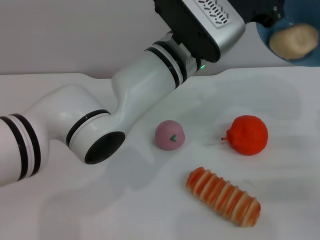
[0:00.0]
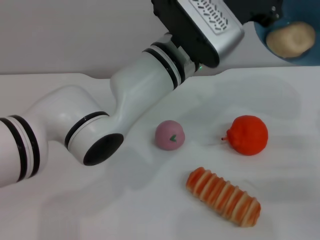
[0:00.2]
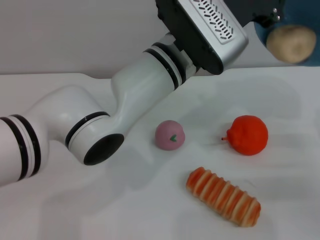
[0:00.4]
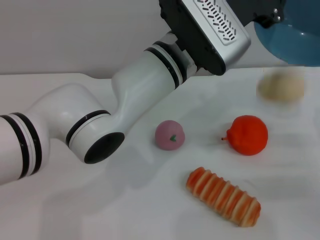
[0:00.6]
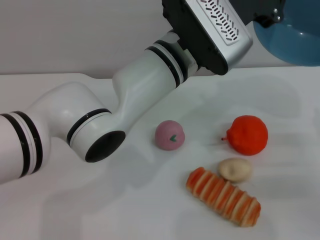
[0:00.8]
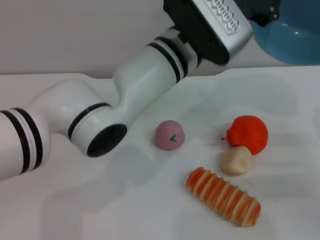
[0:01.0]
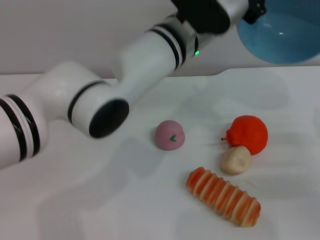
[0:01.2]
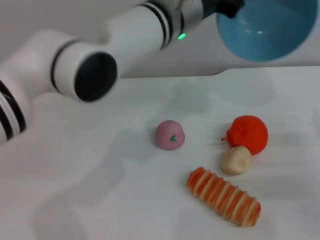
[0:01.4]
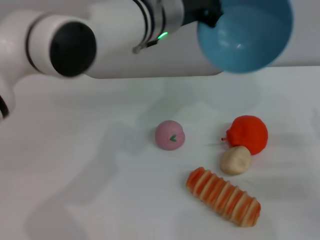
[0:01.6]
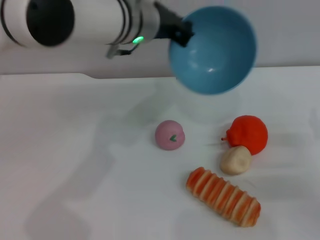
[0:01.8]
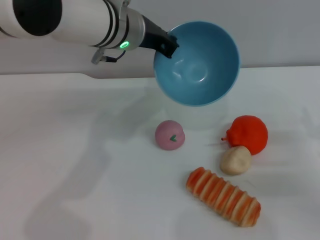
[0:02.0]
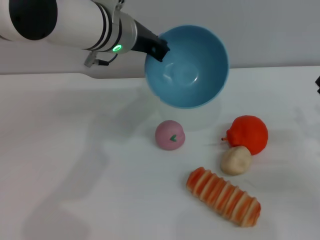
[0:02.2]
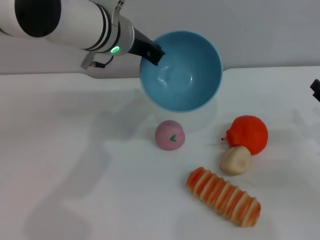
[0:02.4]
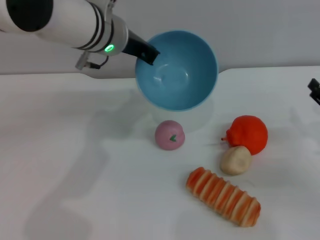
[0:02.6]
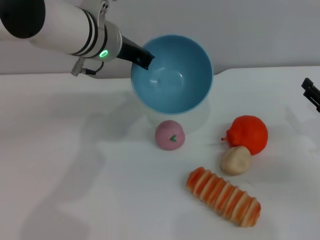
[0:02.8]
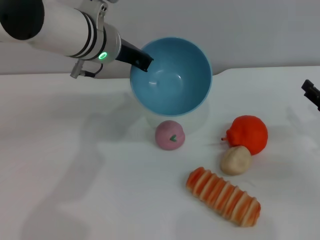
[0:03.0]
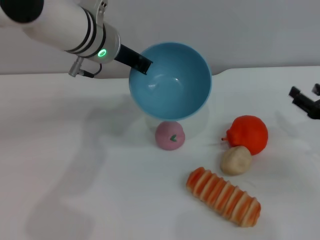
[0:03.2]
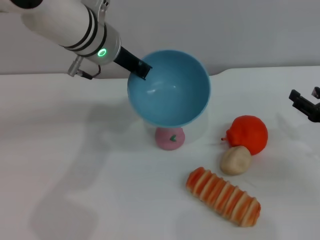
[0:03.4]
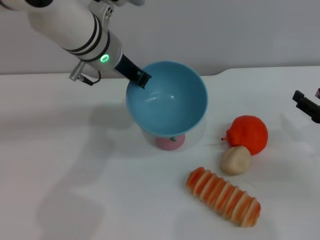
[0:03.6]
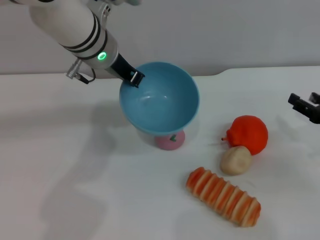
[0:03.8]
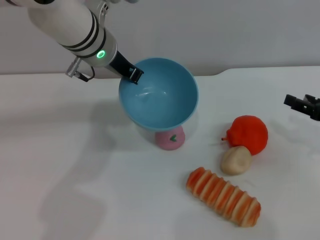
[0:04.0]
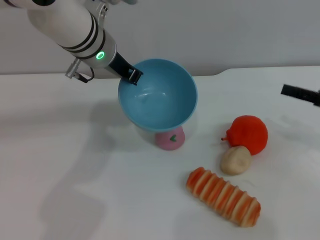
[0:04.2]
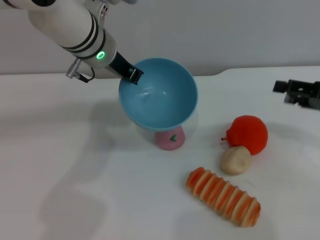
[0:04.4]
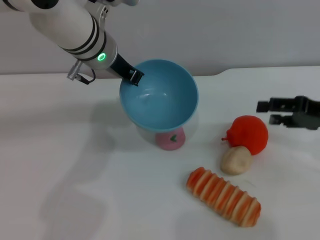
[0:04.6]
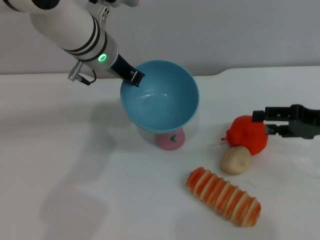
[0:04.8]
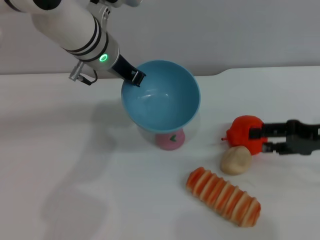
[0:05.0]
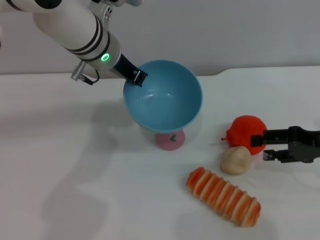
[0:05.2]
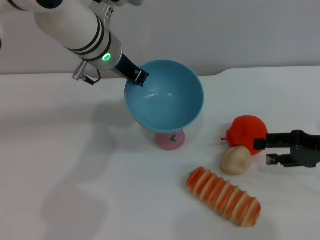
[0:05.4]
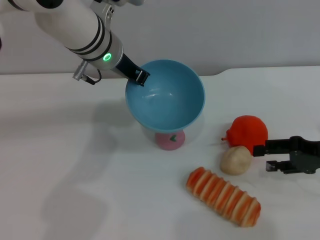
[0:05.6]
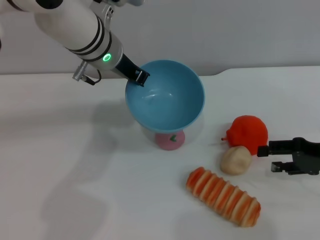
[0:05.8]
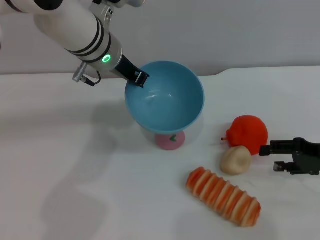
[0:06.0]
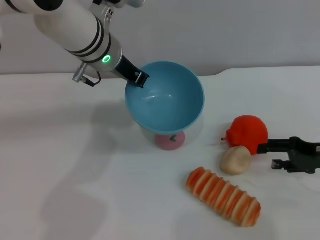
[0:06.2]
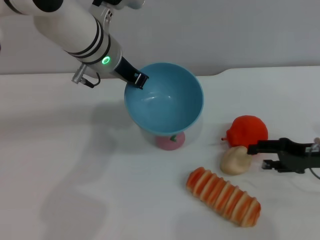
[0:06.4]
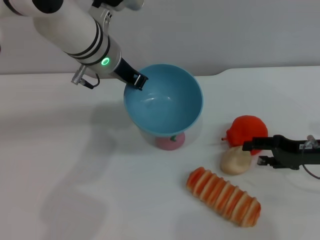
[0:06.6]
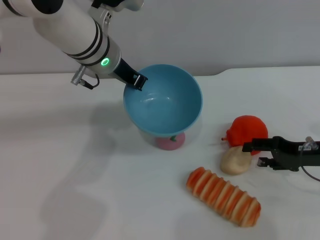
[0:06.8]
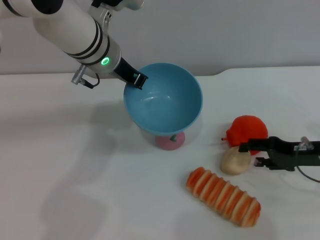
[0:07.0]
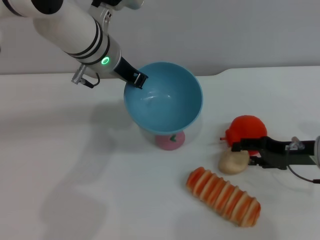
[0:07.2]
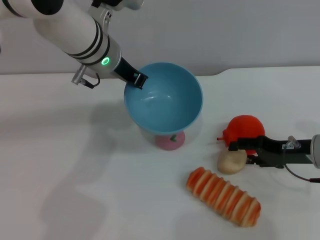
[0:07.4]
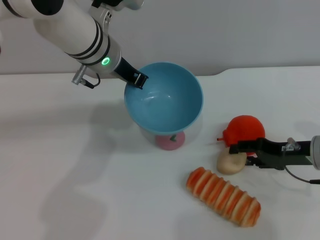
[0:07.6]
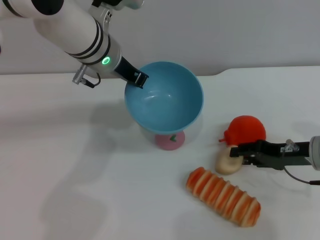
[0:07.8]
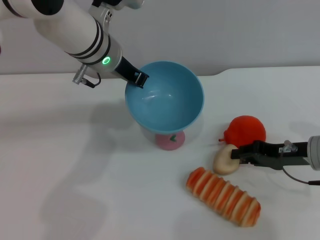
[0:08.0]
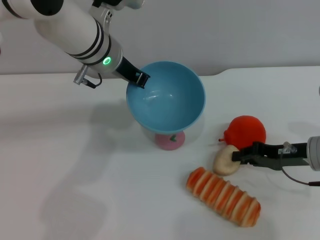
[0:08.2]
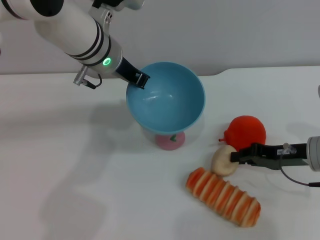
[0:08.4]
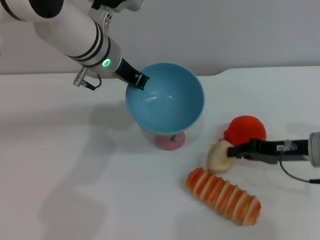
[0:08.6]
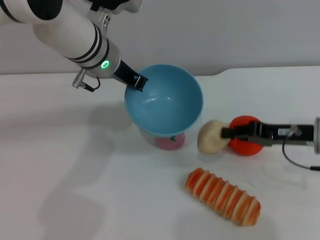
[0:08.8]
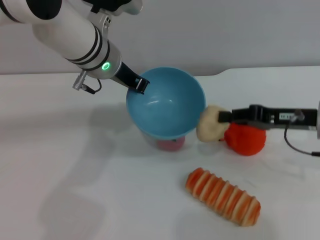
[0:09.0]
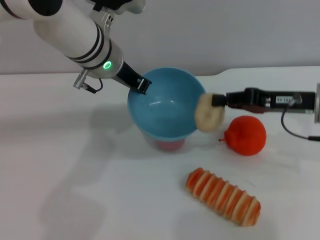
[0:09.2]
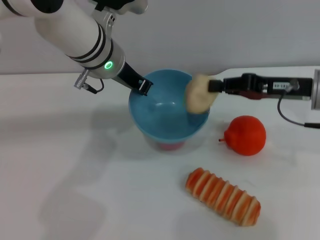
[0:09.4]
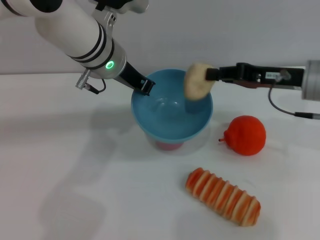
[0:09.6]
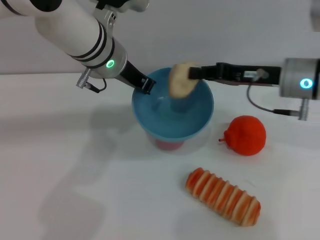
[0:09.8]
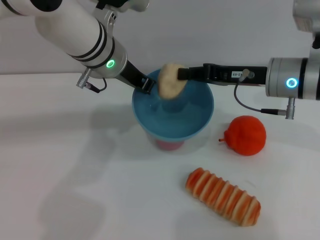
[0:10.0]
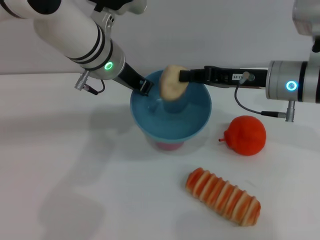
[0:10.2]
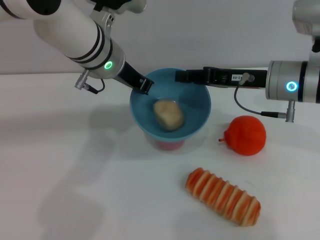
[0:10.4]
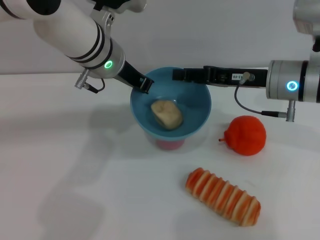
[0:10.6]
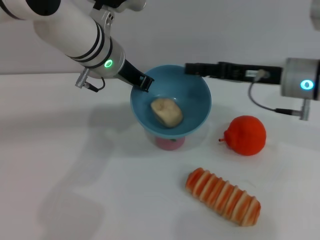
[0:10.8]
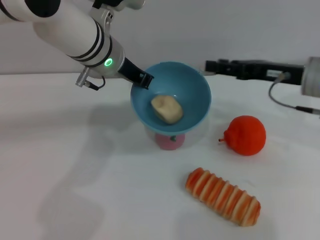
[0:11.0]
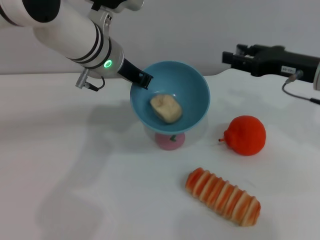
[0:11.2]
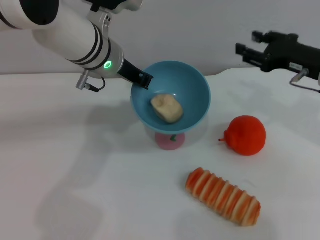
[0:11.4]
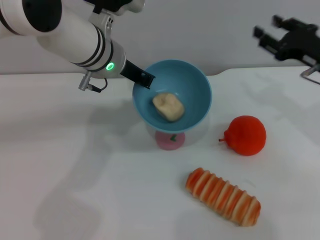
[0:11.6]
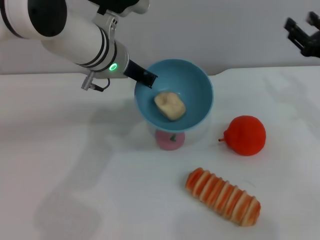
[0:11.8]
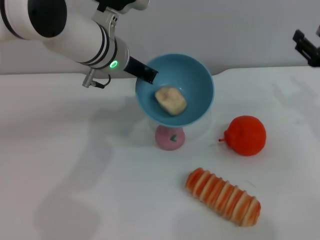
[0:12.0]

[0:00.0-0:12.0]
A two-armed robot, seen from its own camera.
Task of the whole recording: put the egg yolk pastry into the blue bowl and pour it out repeatedly.
Step, 0:01.2 to 0:08.8: Pick up the egg yolk pastry with the right gripper.
Step, 0:09.0 to 0:11.0: Place the egg yolk pastry into the bowl.
0:00.0 to 0:01.6: The left gripper changes place by approximately 5 cm.
0:01.6 to 0:03.0: The left gripper heads to the left, covering roughly 5 cm.
0:03.0 to 0:04.4: The right gripper travels upward by roughly 10 cm.
0:04.4 to 0:06.0: The right gripper is displaced downward by about 5 cm.
0:06.0 to 0:07.6: The right gripper moves to the left, about 5 cm.
0:07.6 to 0:09.0: The right gripper is displaced upward by approximately 5 cm, and closes its fingers.
0:09.0 to 0:10.4: The right gripper goes some 10 cm to the left and forward.
0:10.4 to 0:12.0: The right gripper moves to the right, roughly 15 cm, and opens up.

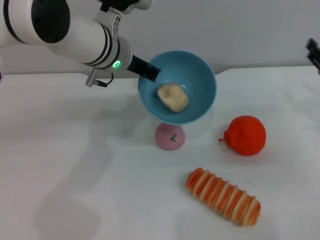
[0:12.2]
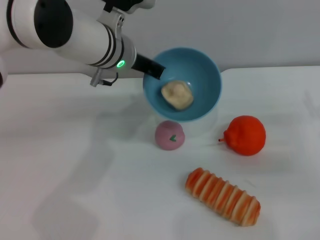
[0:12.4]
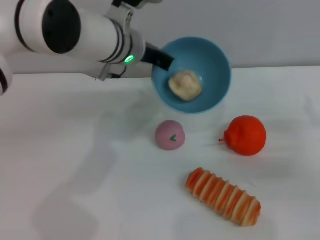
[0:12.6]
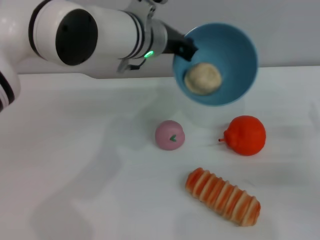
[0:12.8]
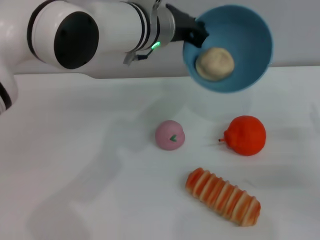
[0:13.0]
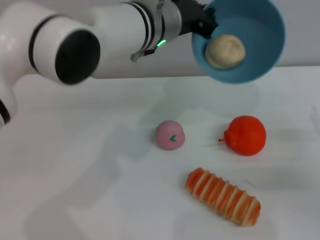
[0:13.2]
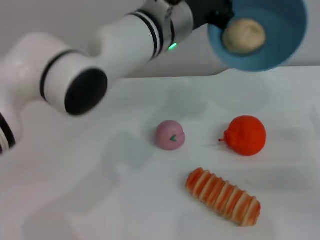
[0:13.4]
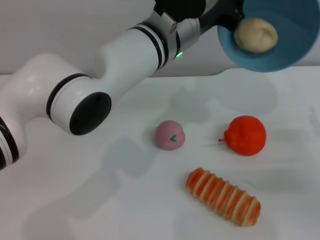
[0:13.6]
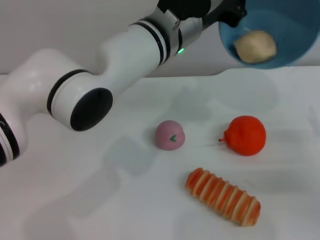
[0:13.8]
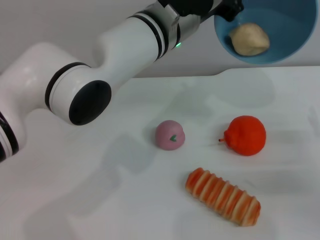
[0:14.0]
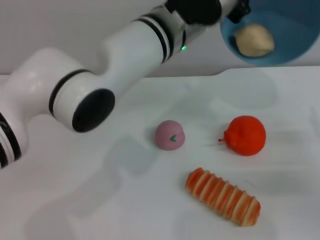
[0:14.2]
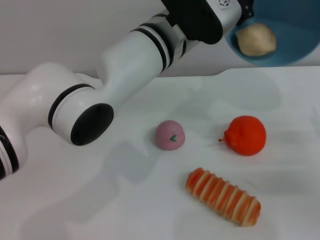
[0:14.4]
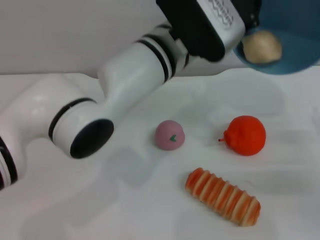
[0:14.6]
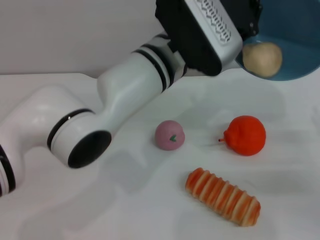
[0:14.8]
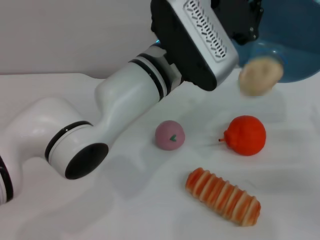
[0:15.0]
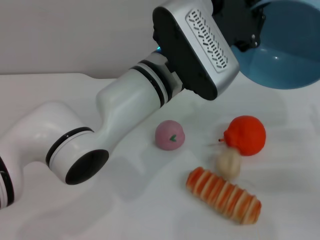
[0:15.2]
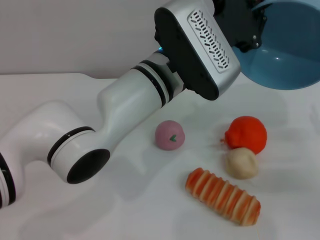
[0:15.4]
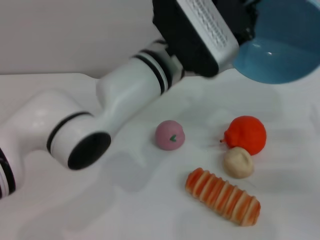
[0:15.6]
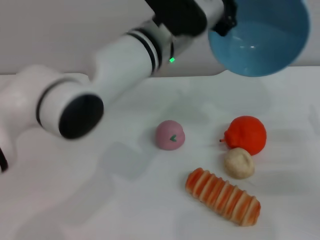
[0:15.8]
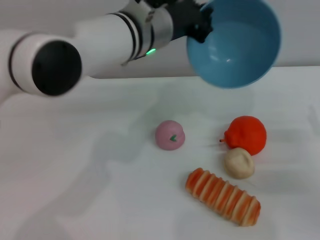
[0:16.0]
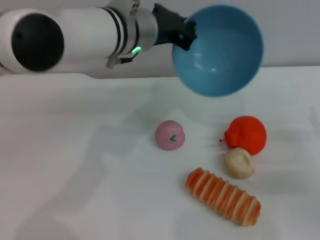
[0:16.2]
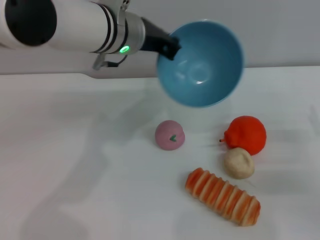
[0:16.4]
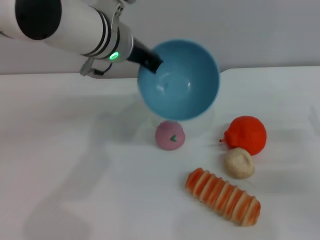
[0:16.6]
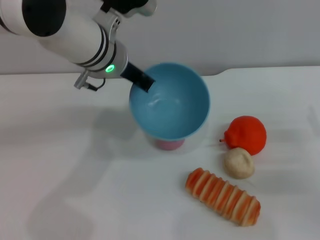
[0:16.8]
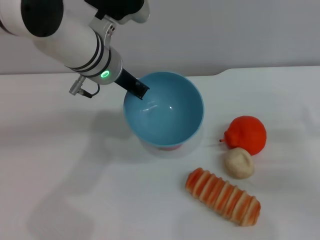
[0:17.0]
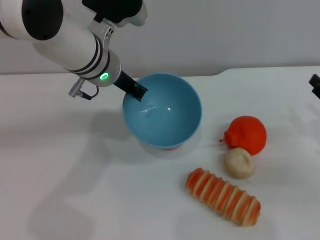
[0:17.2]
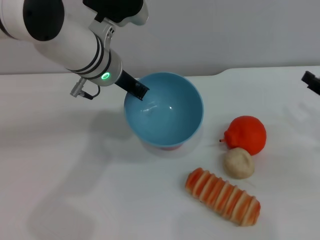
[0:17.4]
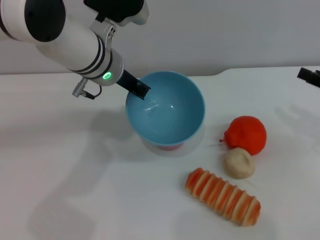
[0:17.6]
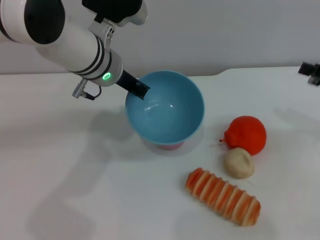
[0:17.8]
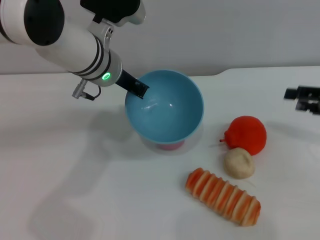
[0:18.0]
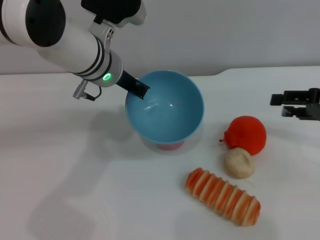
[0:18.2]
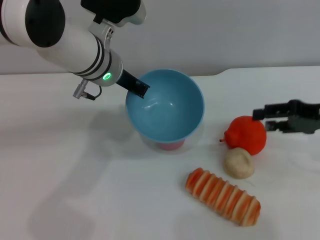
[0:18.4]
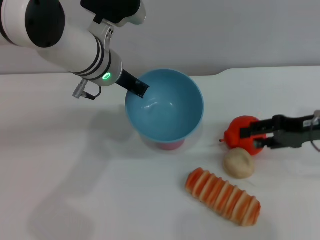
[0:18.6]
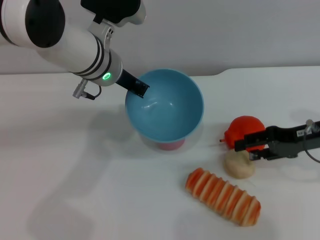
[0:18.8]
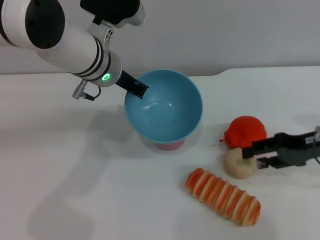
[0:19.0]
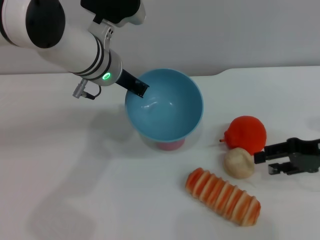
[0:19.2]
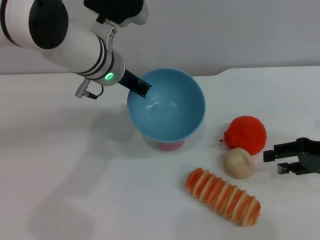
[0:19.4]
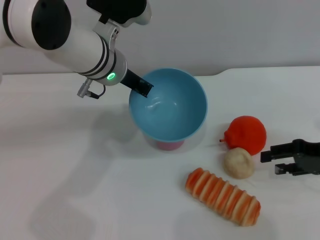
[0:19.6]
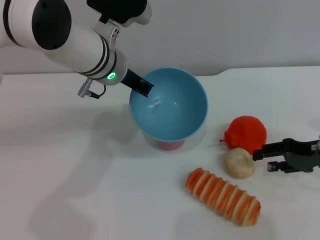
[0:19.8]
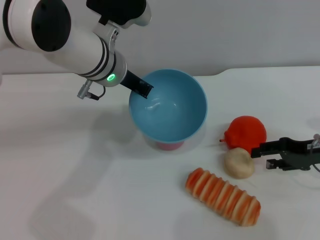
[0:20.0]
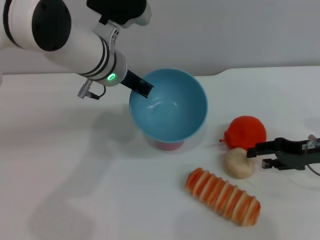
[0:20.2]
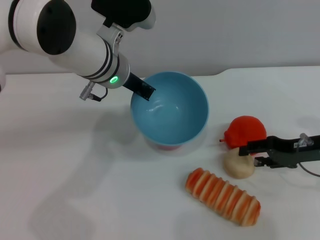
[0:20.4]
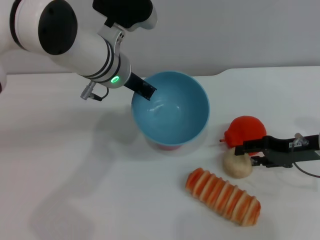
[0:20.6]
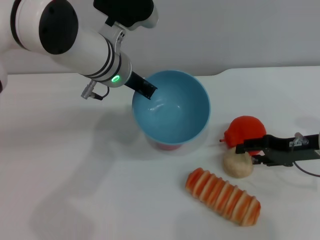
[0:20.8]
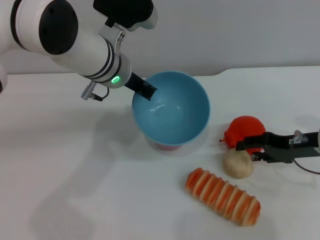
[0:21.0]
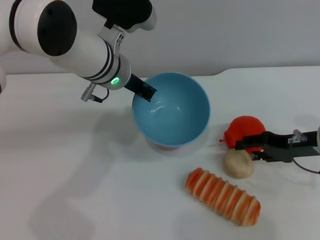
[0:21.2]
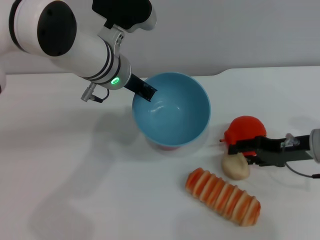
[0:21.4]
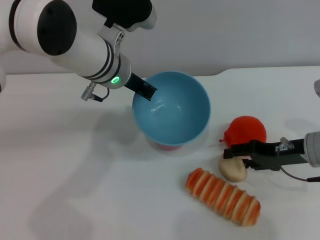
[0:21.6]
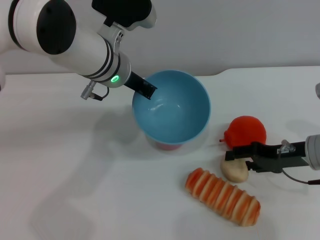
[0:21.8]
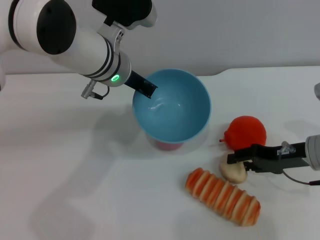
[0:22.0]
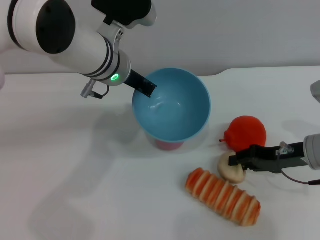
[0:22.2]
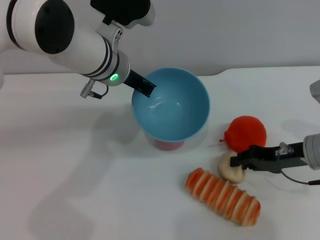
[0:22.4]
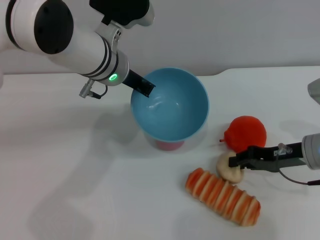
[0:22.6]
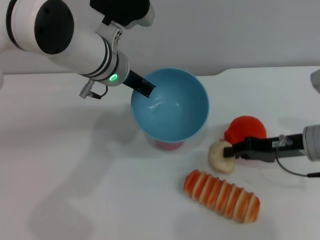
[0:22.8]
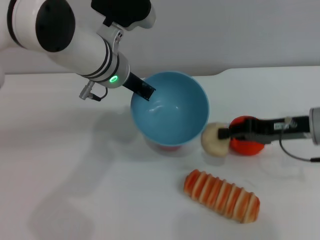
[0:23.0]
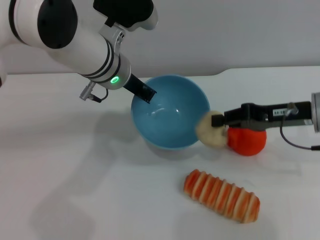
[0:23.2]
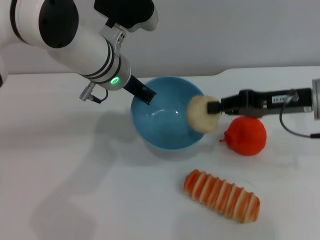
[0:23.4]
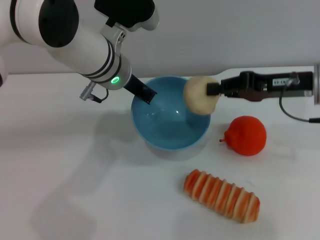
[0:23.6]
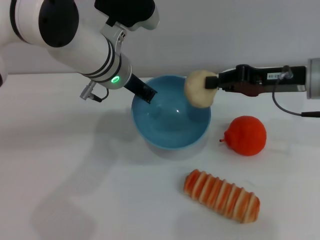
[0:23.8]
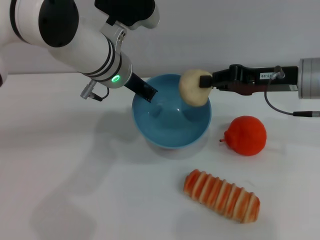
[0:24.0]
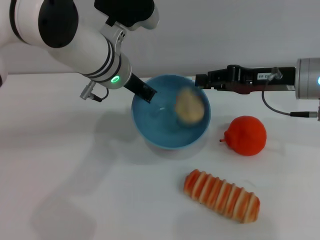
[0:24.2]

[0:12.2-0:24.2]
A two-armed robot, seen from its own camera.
Task of the whole recording: put the egg yolk pastry into the blue bowl and pour it out repeatedly.
Step, 0:12.2 to 0:15.6: Pour the egg yolk pastry out of bowl.
Step, 0:15.8 to 0:23.4: Pick up the egg yolk pastry with the right gripper.
0:12.2 to 0:13.8: The left gripper goes some 10 cm to the right; the right gripper shifts some 5 cm backward.
0:15.2 to 0:16.6: The left gripper is displaced to the left and forward by approximately 10 cm.
0:16.6 to 0:18.2: The right gripper travels upward and forward by approximately 10 cm.
0:18.2 to 0:19.8: The right gripper is displaced downward by about 5 cm.
0:19.8 to 0:21.2: There are only small adjustments of the grippers.
0:21.2 to 0:22.6: The right gripper closes.
0:22.6 to 0:24.2: The right gripper moves upward, roughly 10 cm.
